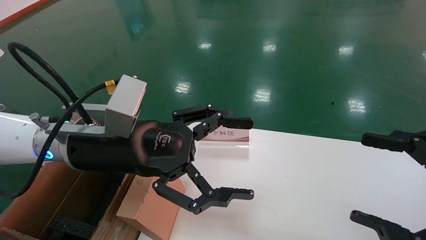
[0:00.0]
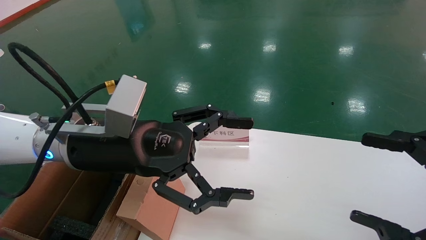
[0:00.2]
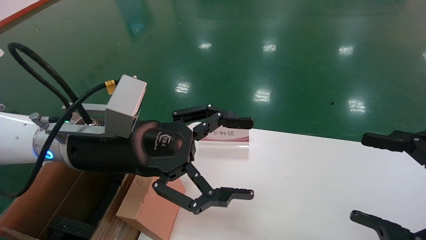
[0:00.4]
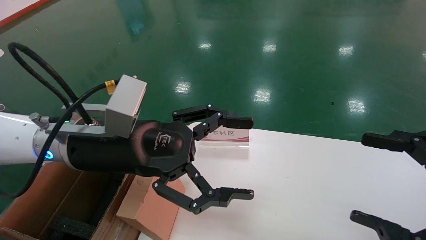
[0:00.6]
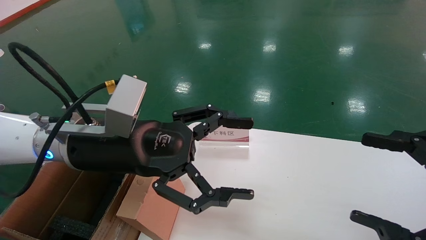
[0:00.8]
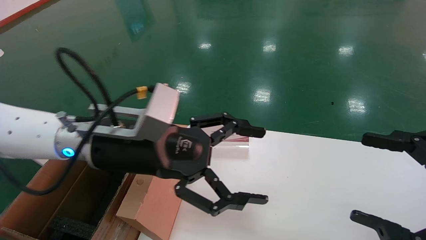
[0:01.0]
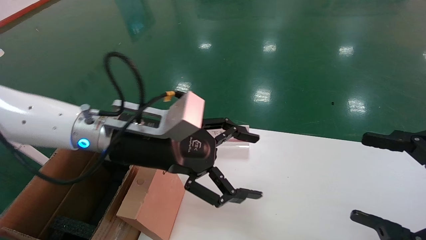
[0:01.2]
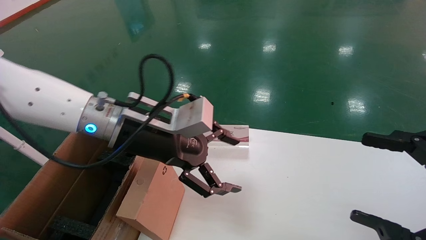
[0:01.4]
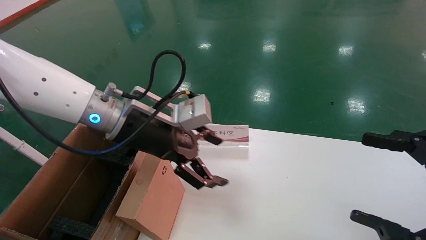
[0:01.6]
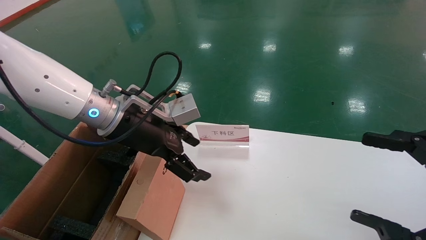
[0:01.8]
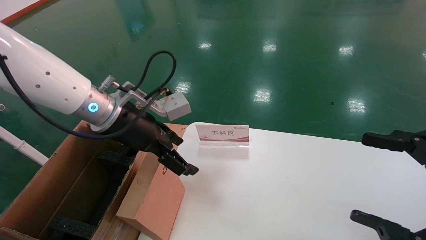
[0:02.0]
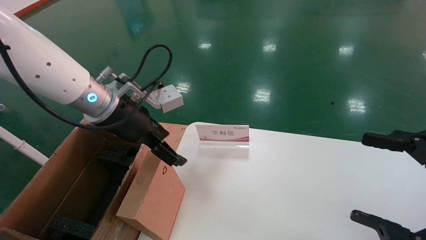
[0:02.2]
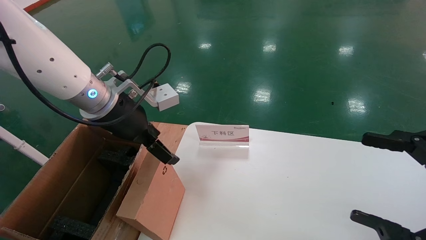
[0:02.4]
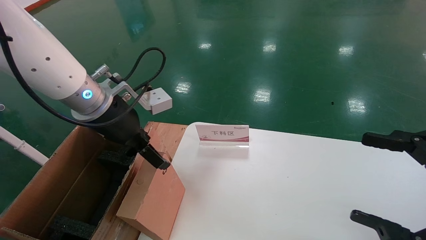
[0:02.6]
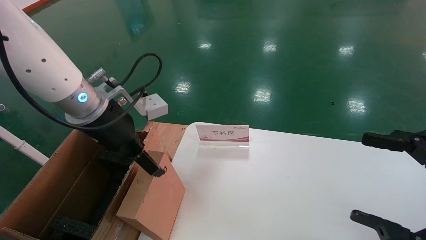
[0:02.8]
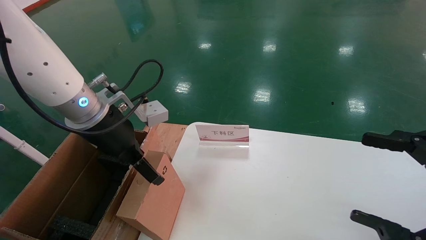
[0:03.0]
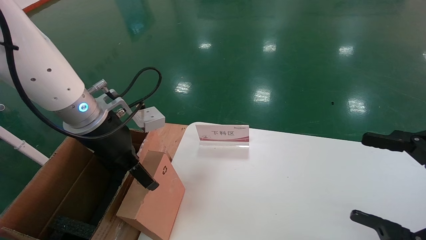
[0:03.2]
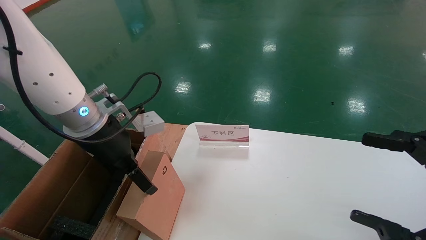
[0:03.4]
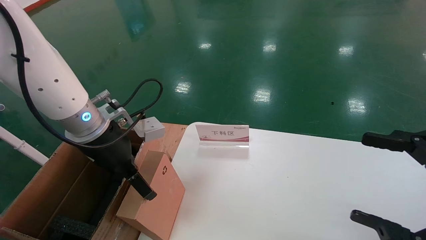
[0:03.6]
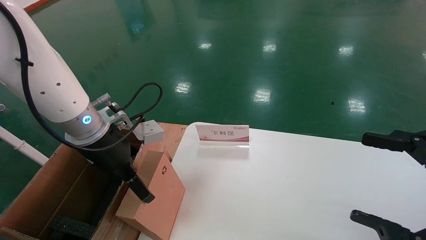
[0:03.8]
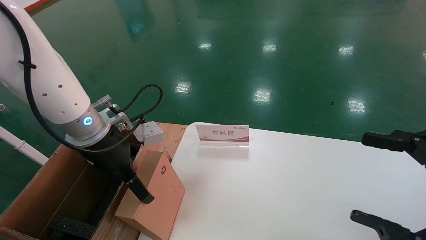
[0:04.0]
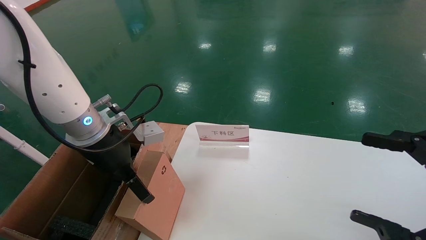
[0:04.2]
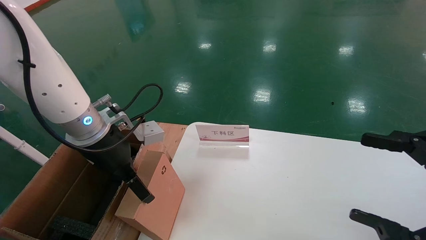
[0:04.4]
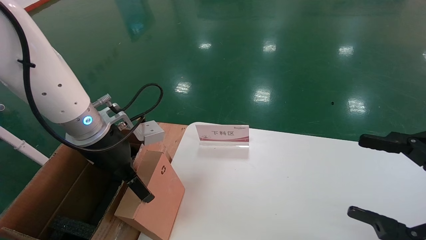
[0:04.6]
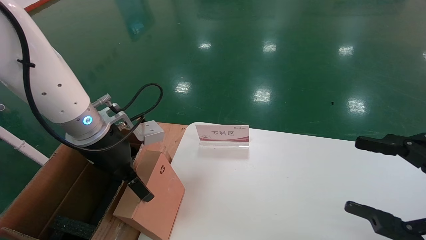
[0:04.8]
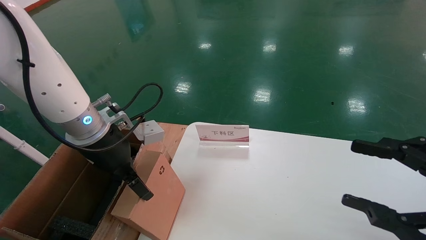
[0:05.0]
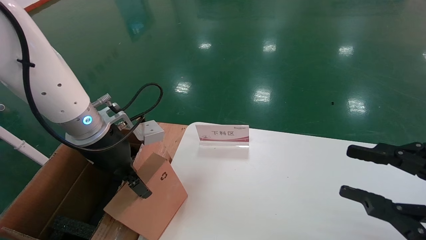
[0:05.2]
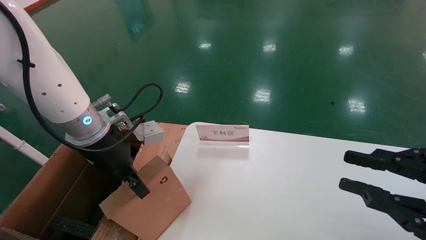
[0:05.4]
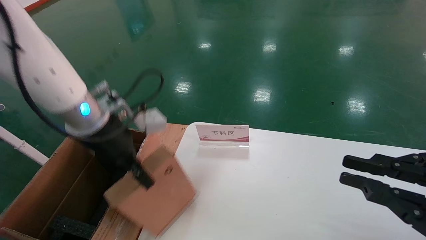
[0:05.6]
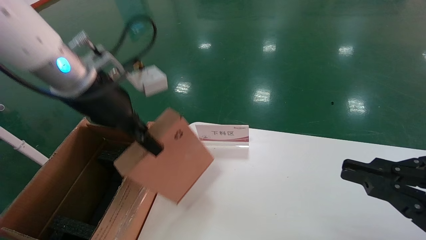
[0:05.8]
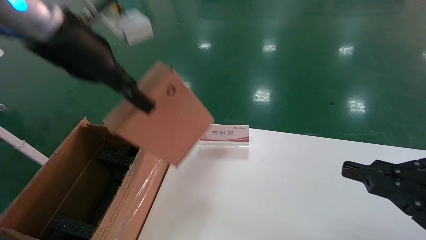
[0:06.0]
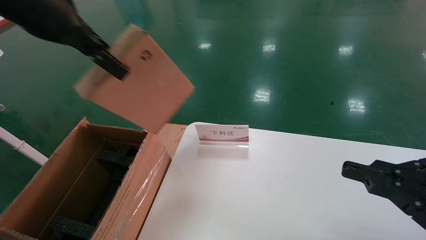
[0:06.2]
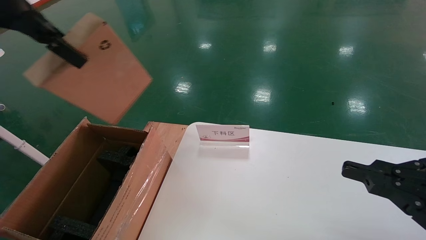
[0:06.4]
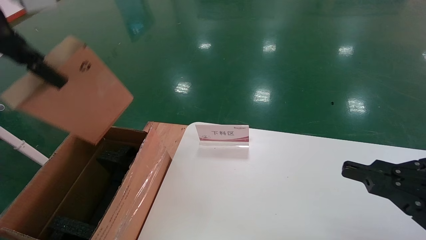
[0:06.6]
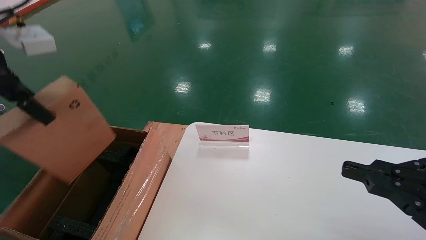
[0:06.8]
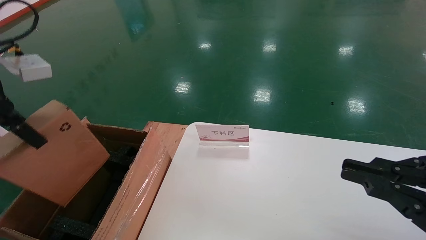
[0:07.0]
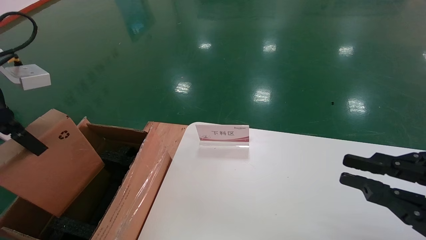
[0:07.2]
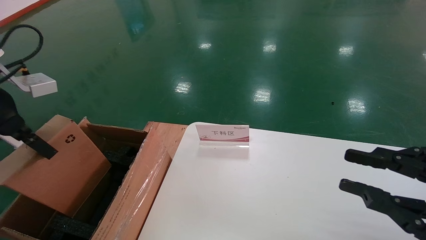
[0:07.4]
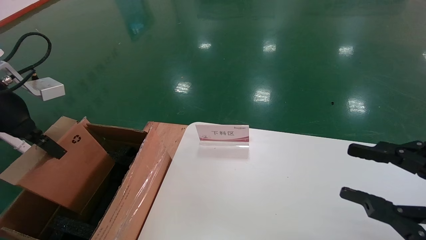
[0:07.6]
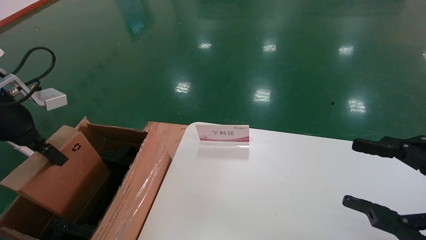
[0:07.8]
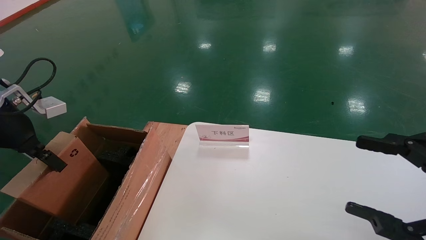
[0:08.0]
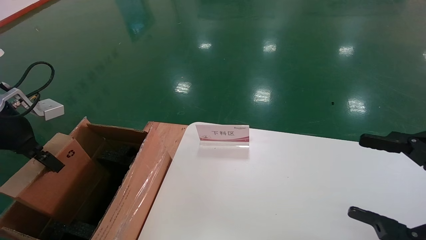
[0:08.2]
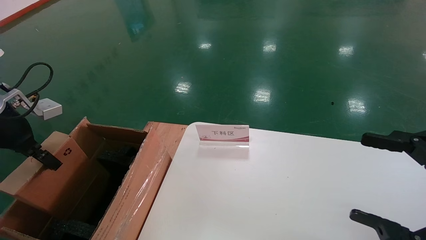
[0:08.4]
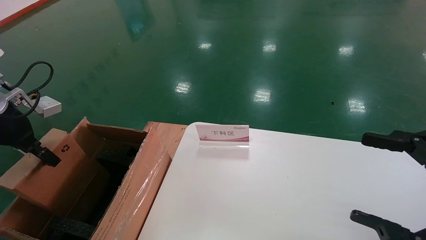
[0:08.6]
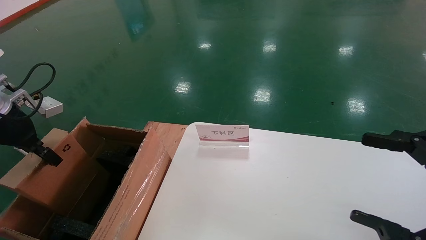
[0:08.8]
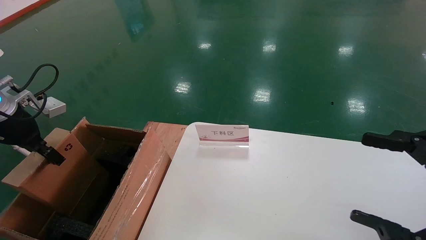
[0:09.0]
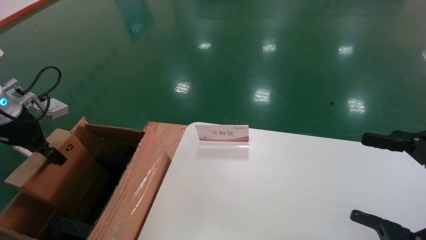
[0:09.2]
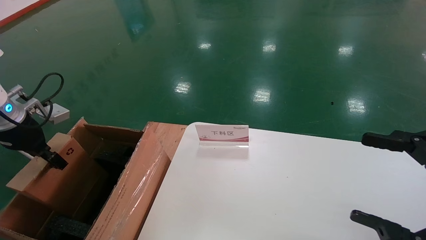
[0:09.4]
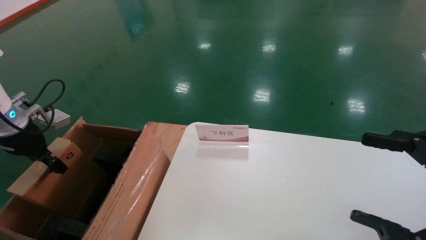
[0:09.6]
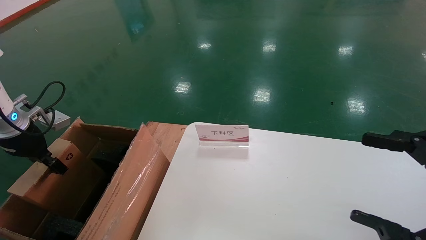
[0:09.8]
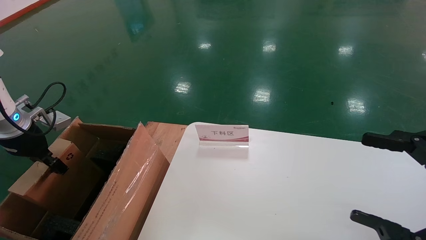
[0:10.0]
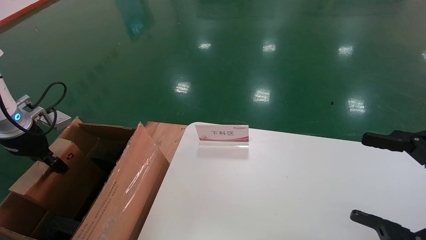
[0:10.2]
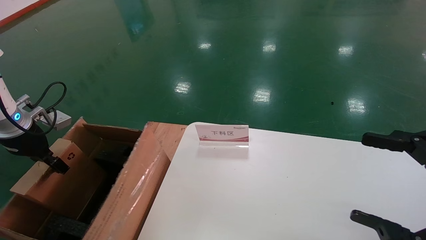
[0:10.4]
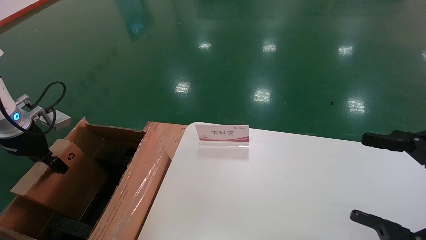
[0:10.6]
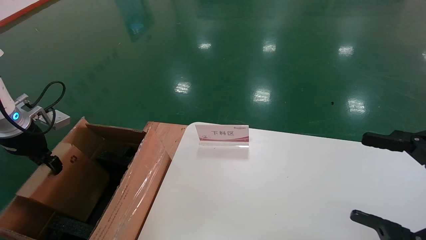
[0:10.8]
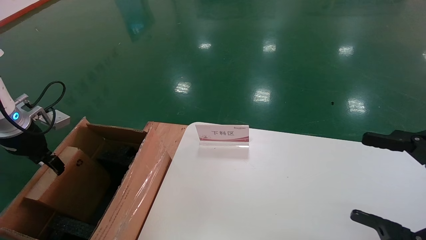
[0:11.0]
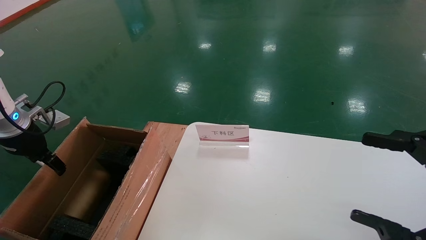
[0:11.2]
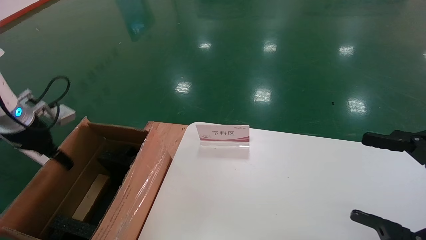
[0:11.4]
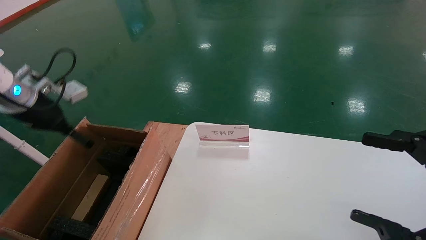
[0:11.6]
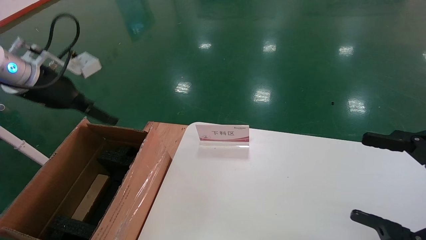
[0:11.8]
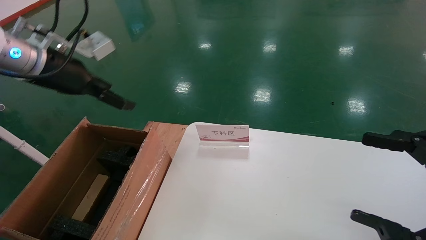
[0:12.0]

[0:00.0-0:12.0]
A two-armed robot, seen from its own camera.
Task of the whole recording: pick up the small cardboard box and load it into the large cardboard box.
Step, 0:01.2 to 0:05.4: Pick up the mouse and power cord box.
Step, 0:05.6 to 0:11.2: Place the mouse and power cord box into the case.
0:00.0 to 0:01.6: The left gripper travels forward by about 5 cm.
0:03.0 to 0:04.4: There are only small adjustments of the grippers.
0:04.4 to 0:06.0: The right gripper closes. Meanwhile the left gripper heads upward, covering roughly 15 cm, and closes up.
0:06.0 to 0:07.6: The left gripper is displaced to the left and downward by some 20 cm.
0:07.6 to 0:09.0: The right gripper opens; the left gripper moves downward and to the left, roughly 10 cm.
0:09.0 to 0:10.4: The left gripper ends up some 5 cm from where it was.
0:10.4 to 0:12.0: The left gripper is displaced upward and to the right by about 15 cm, and opens.

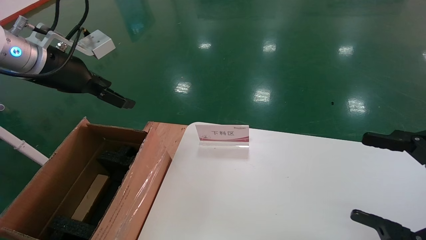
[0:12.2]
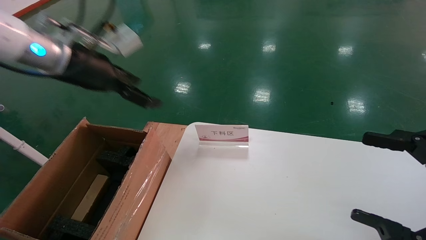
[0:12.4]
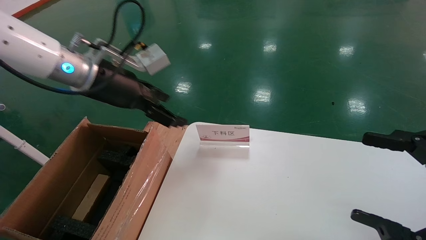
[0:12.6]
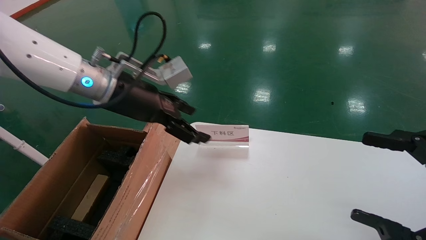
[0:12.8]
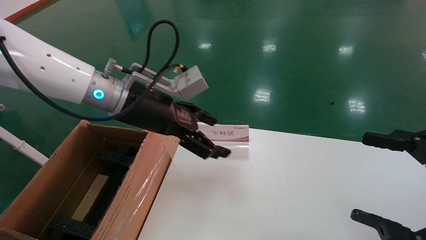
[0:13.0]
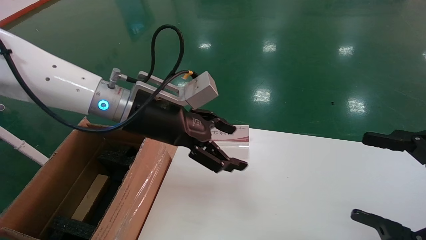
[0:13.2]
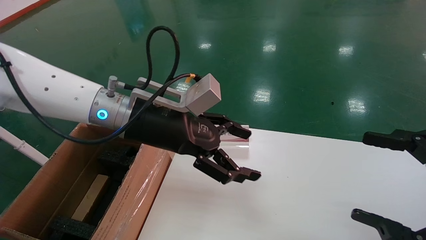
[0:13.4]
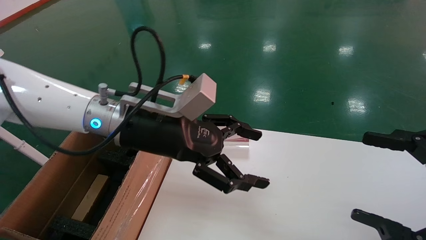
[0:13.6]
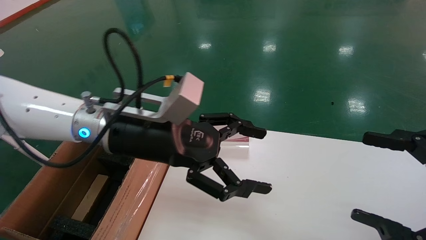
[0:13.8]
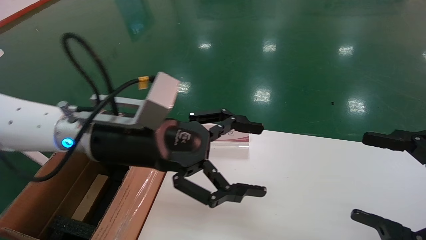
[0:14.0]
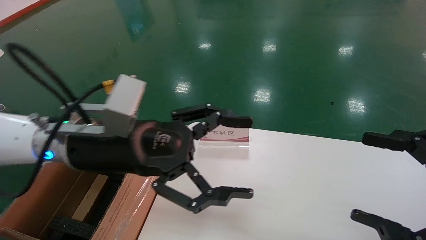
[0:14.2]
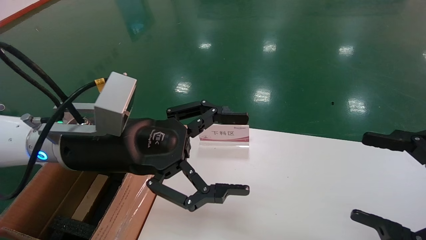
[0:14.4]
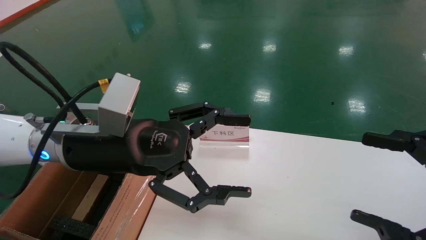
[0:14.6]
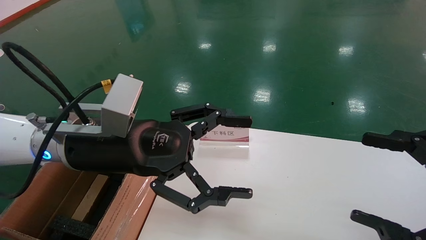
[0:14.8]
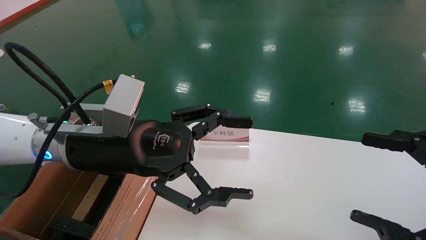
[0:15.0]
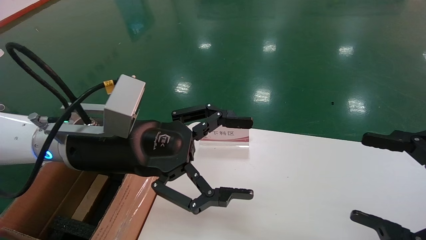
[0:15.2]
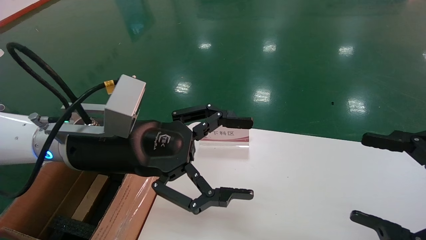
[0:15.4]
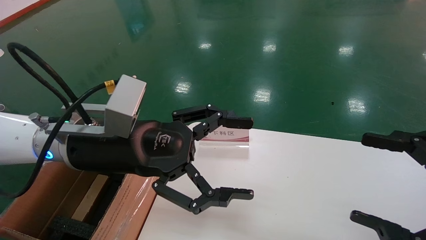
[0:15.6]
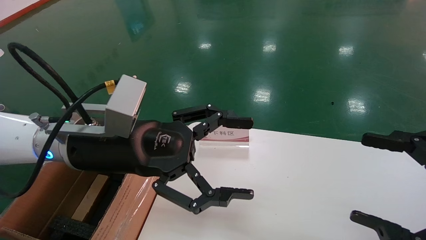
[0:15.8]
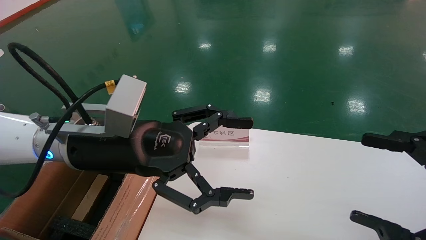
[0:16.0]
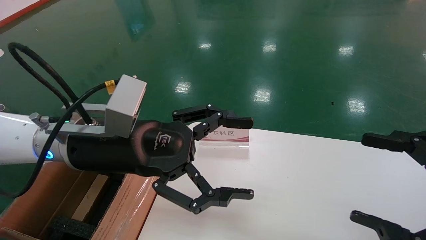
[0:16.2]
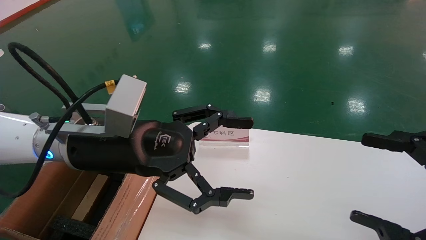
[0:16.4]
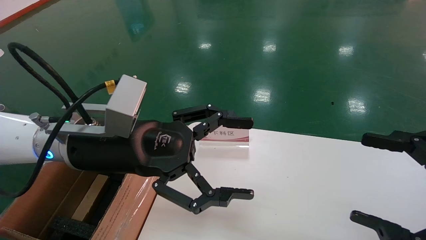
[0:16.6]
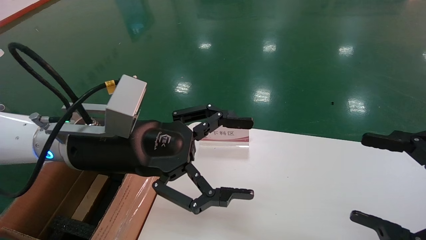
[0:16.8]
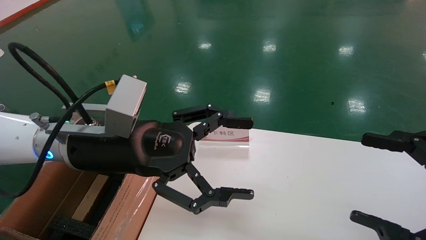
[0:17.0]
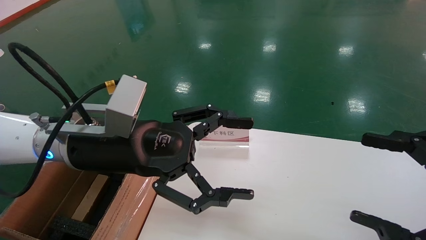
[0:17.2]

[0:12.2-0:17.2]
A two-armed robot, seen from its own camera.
Task of the whole recording: pick up the small cardboard box and load it into the large cardboard box.
0:12.2 to 0:13.8: The left gripper goes approximately 20 cm to the right and downward.
0:13.8 to 0:15.6: The grippers stay close to where they were, moving slightly.
0:15.6 to 0:17.2: Both grippers stay put.
